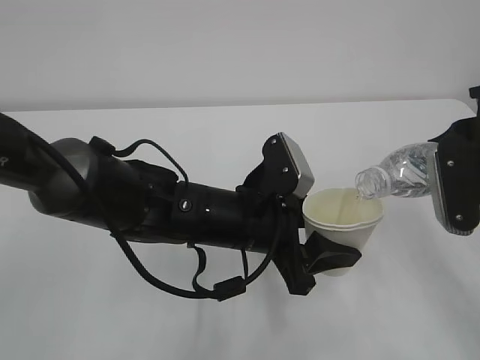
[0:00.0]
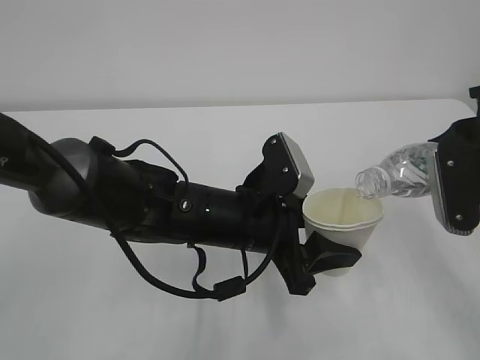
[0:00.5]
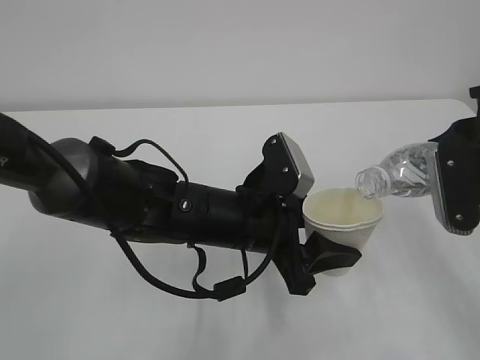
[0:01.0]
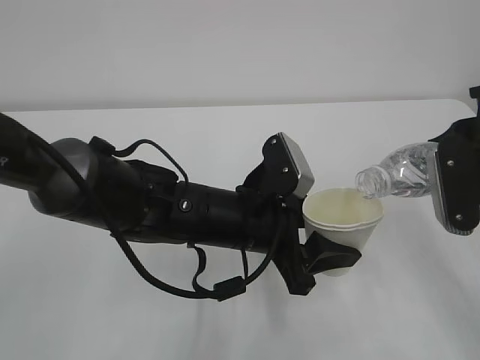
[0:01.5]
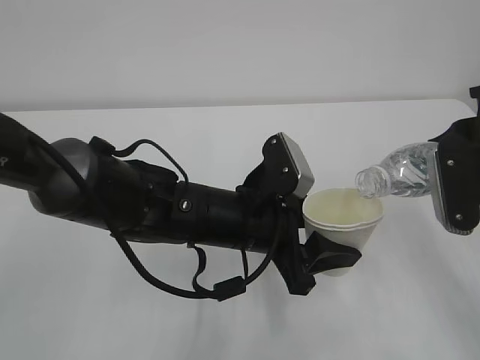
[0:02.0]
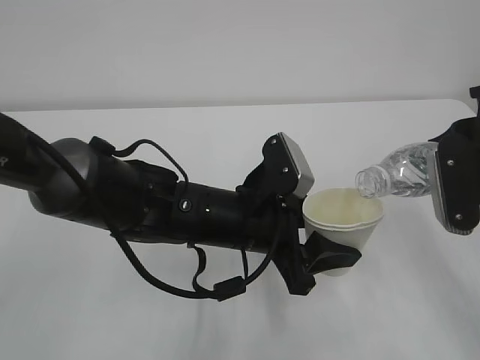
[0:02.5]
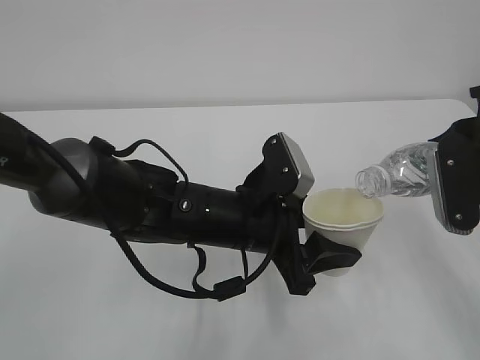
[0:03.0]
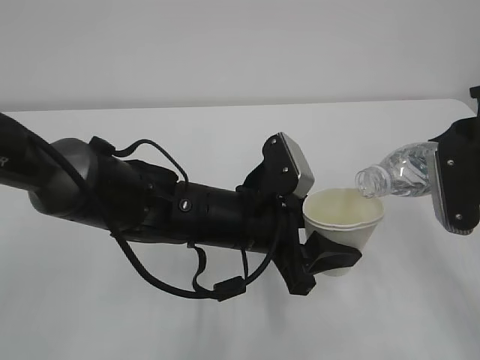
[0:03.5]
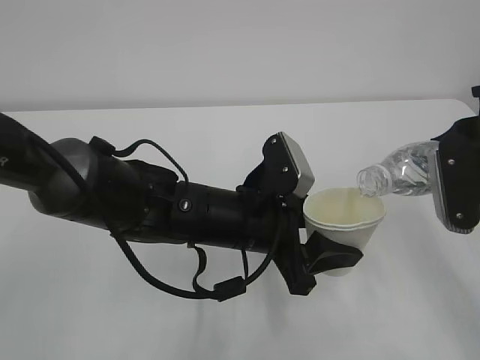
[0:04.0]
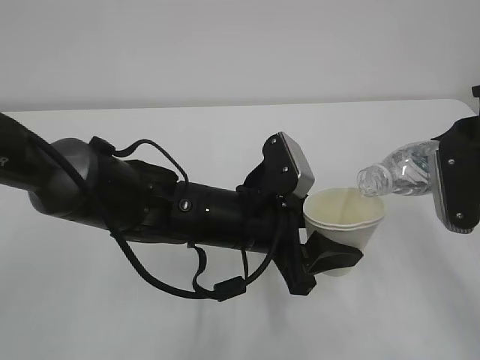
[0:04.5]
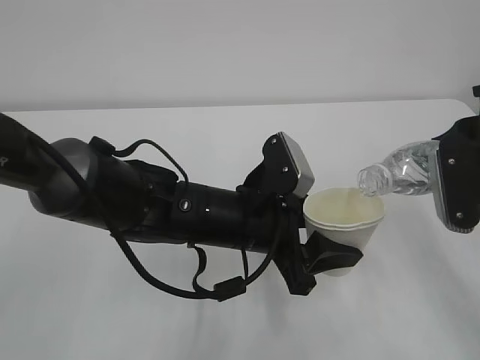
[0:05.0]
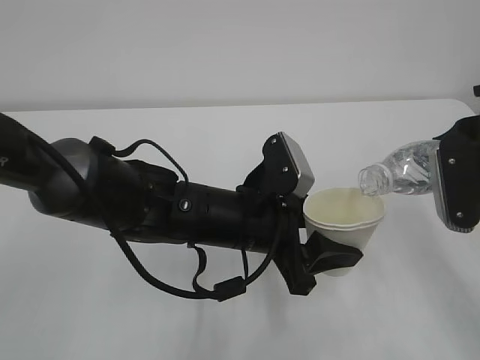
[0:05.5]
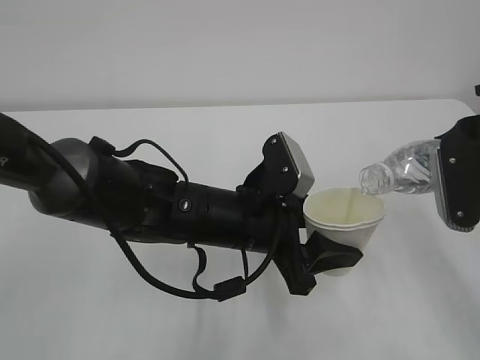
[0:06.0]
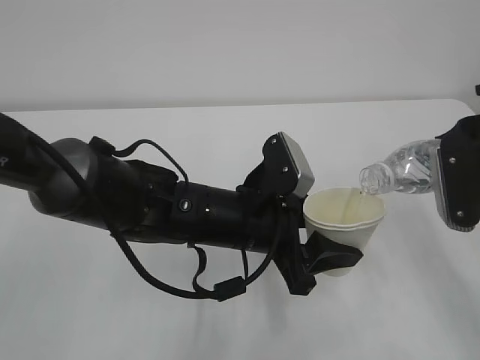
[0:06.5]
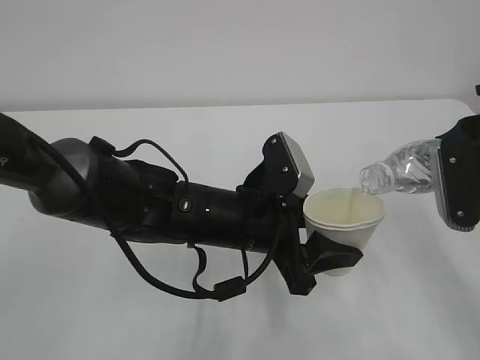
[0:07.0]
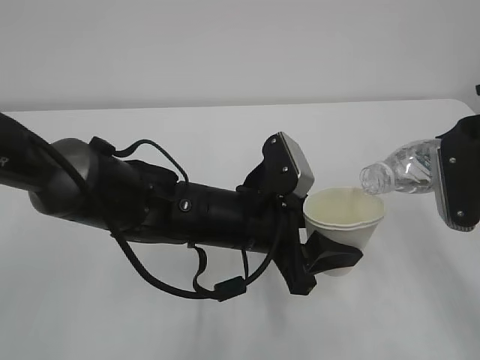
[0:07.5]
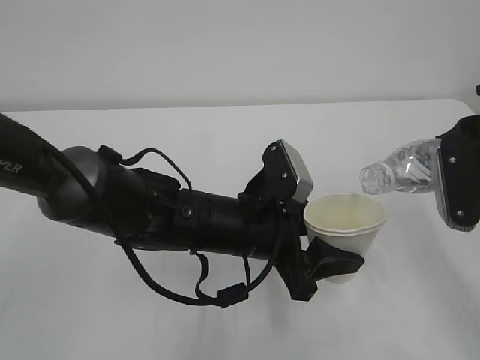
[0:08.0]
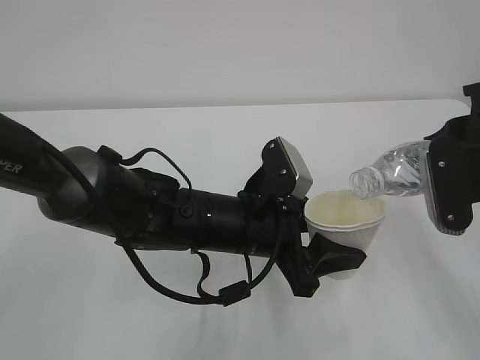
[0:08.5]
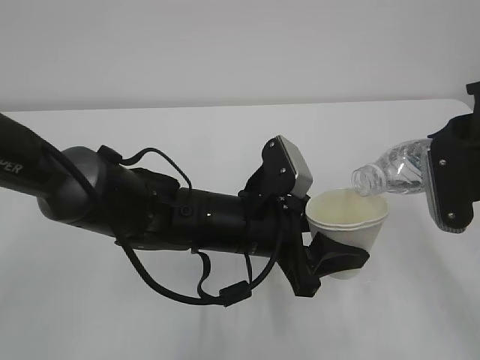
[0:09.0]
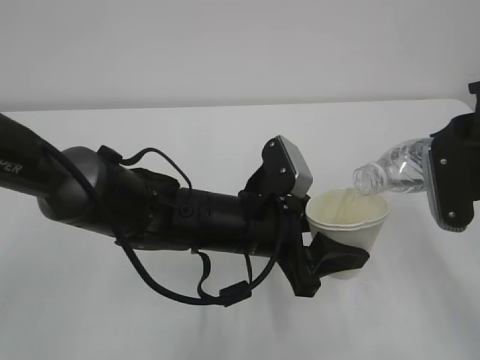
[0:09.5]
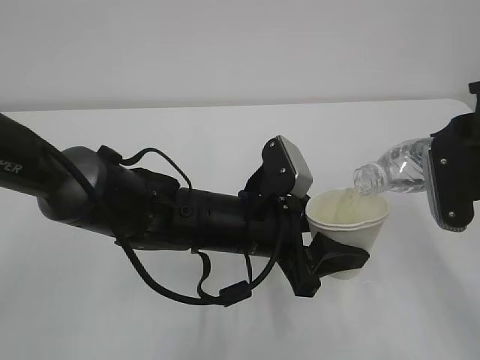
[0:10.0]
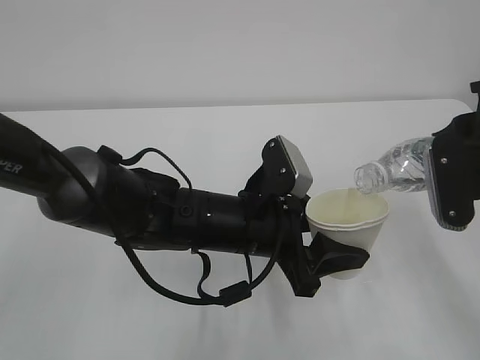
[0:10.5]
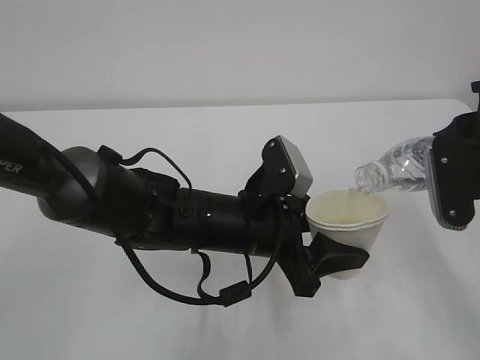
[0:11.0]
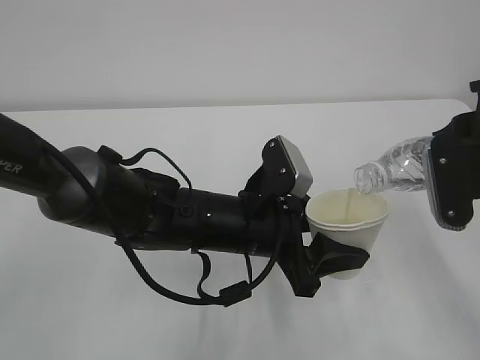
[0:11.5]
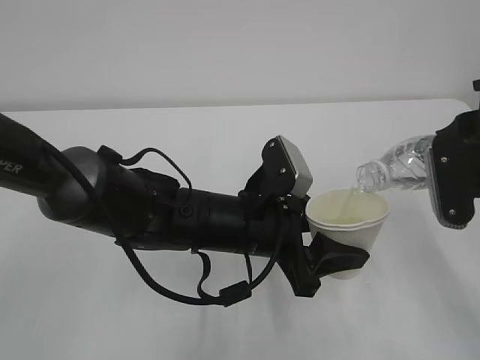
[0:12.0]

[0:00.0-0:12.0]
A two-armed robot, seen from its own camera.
0:00.0 to 0:08.0: Neither gripper changes place.
0:08.0 to 0:12.0: Neither gripper changes place.

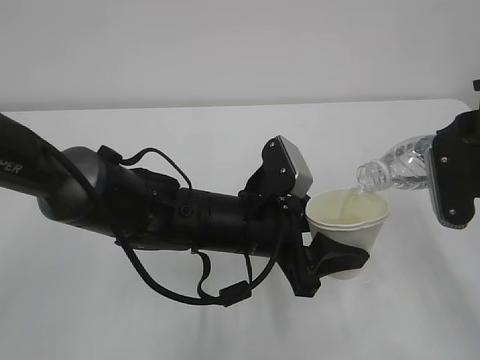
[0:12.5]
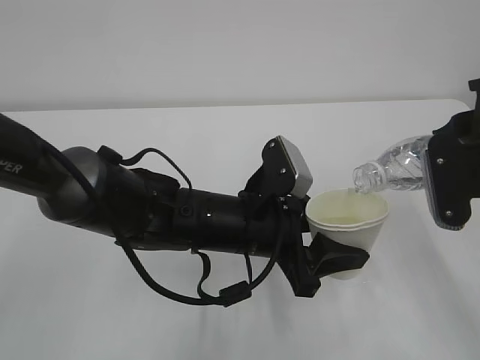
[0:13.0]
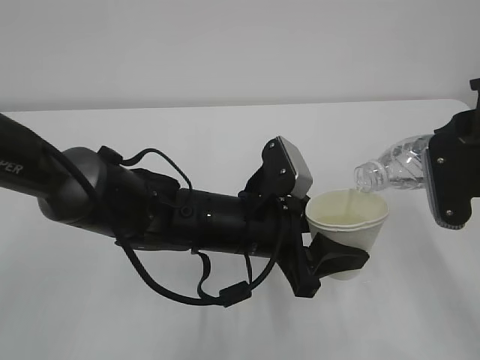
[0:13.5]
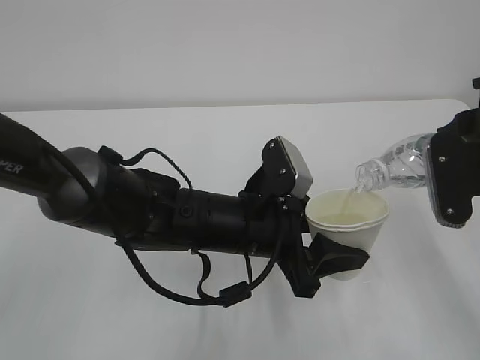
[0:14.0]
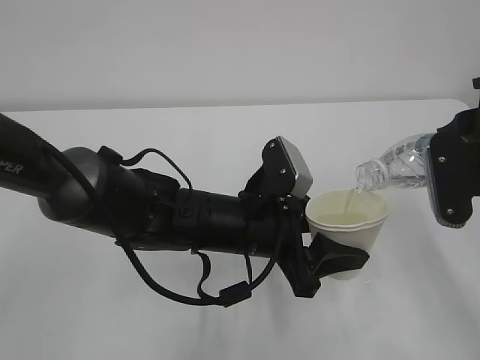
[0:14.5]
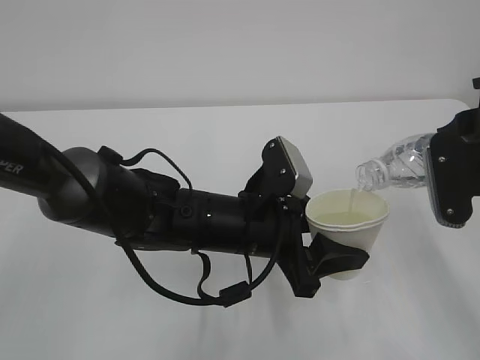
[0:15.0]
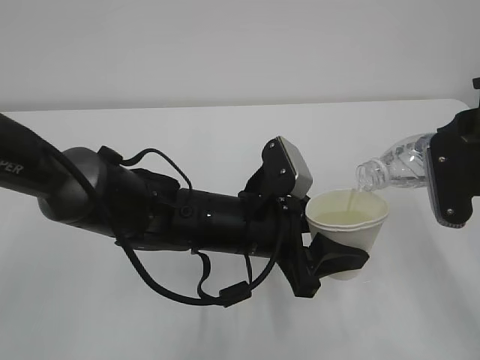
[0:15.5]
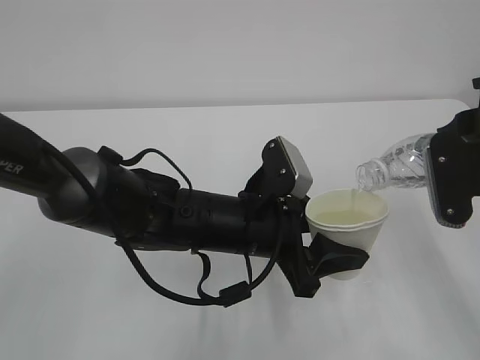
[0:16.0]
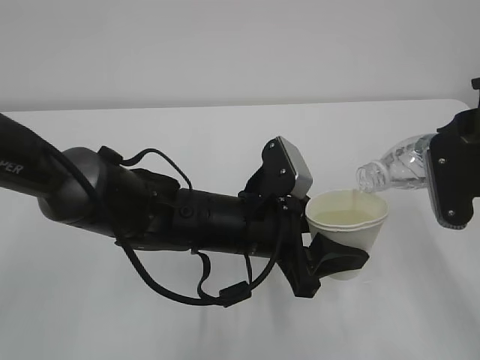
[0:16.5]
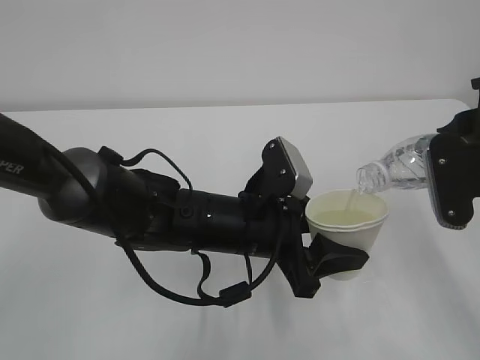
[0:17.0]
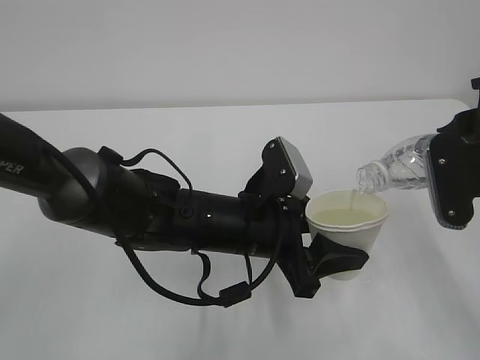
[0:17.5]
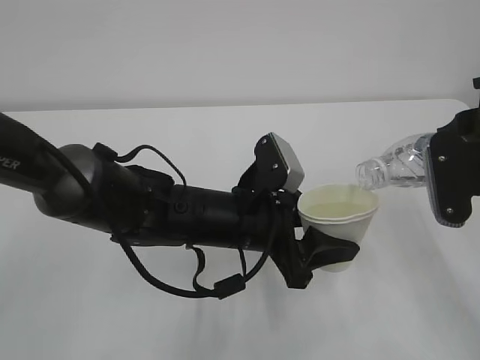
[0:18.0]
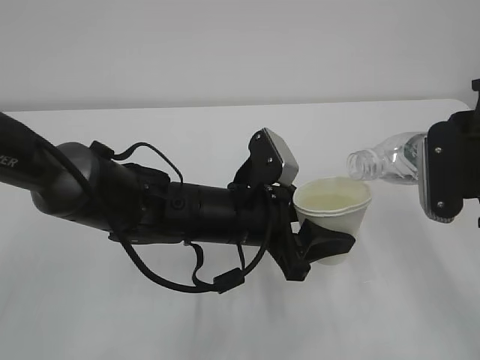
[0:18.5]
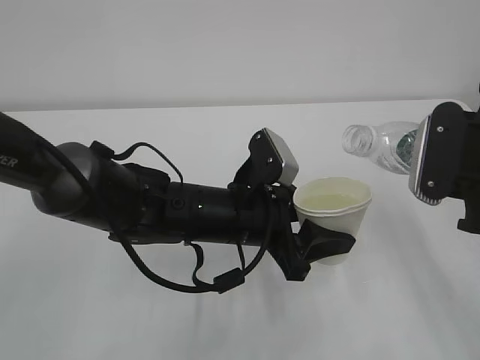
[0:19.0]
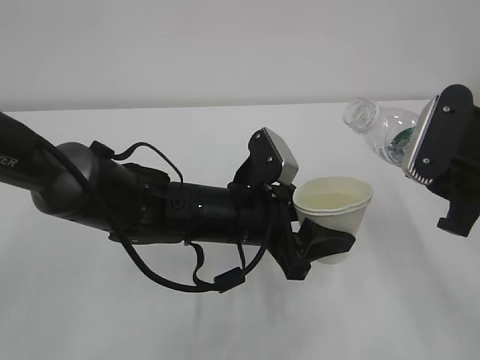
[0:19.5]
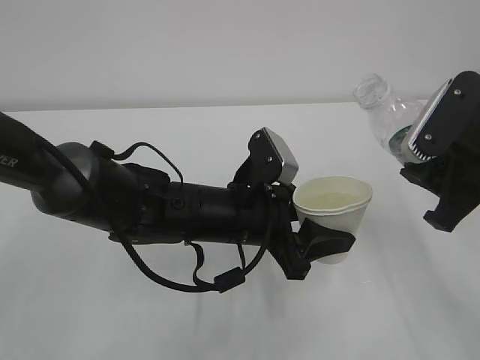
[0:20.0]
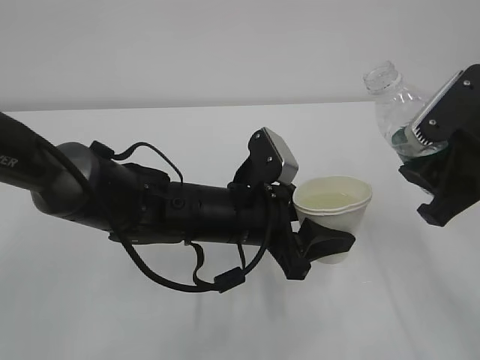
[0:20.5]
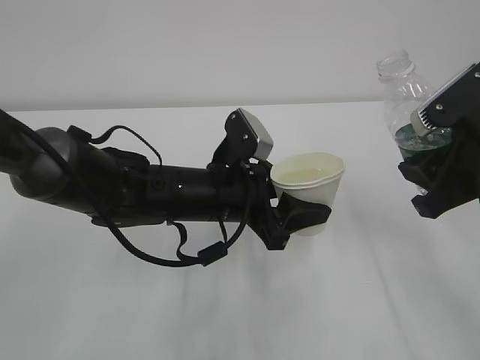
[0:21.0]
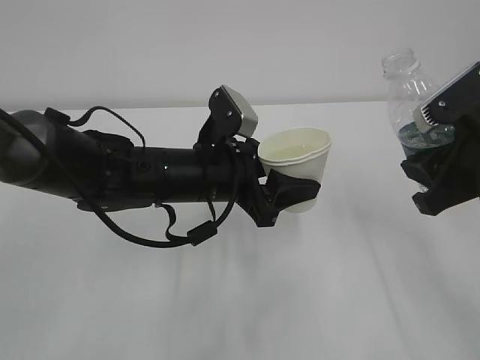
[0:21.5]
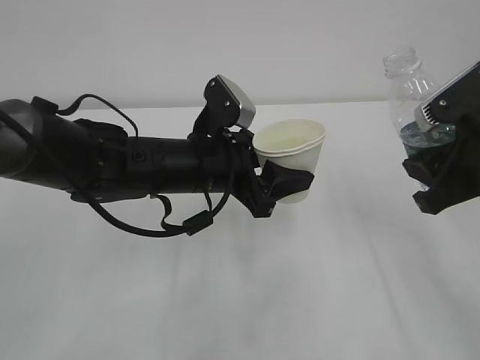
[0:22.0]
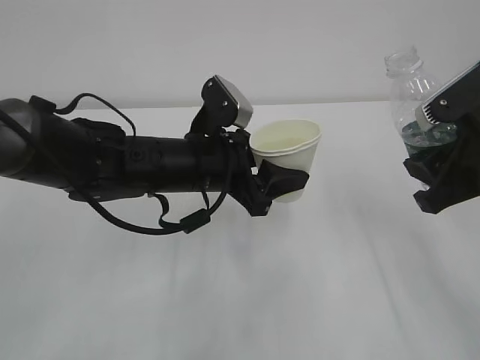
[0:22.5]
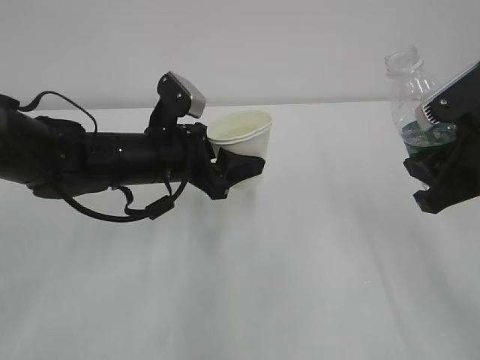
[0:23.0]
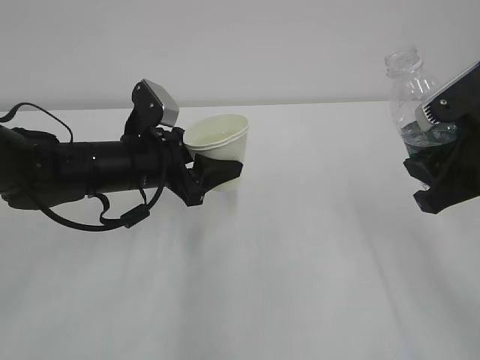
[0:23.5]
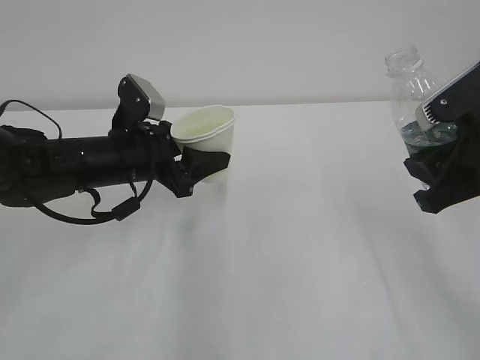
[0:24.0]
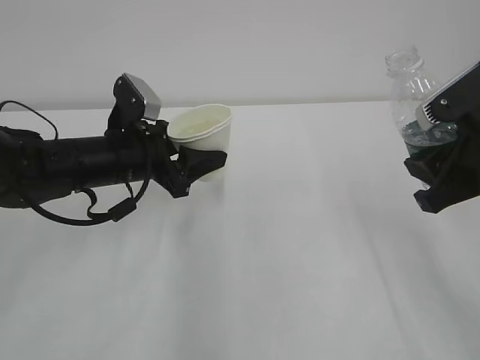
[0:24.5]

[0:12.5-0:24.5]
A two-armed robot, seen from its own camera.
0:12.5 to 0:16.5: Both grippers stay put.
0:16.5 to 0:18.5: The grippers stay close to where they were, moving slightly.
0:20.5 to 0:22.5: The left gripper shifts by approximately 5 cm.
0:22.5 to 0:24.5: The left gripper heads to the left, covering approximately 10 cm.

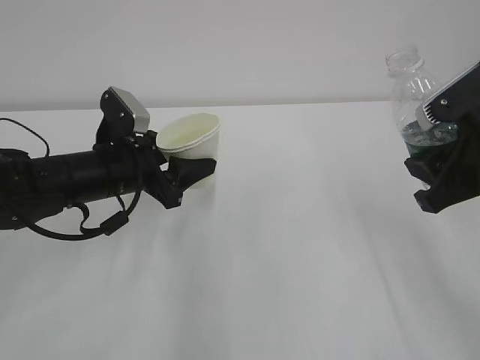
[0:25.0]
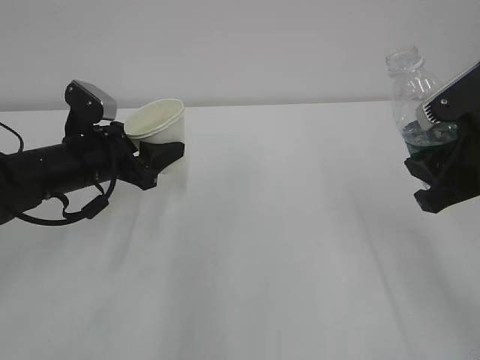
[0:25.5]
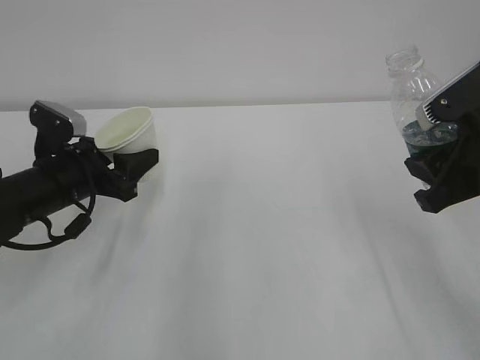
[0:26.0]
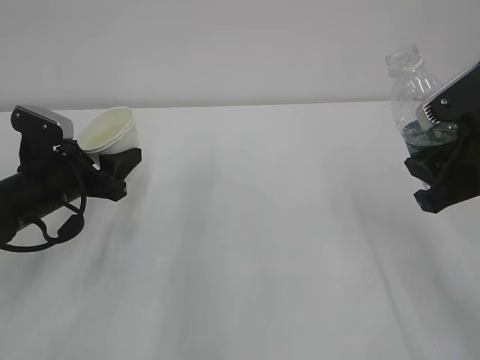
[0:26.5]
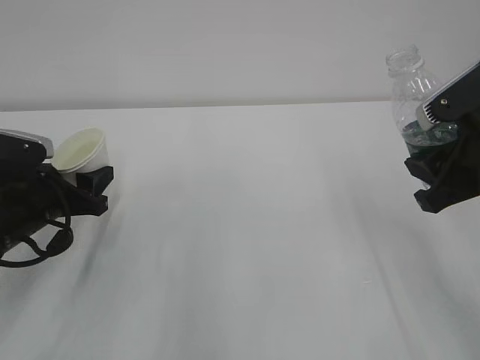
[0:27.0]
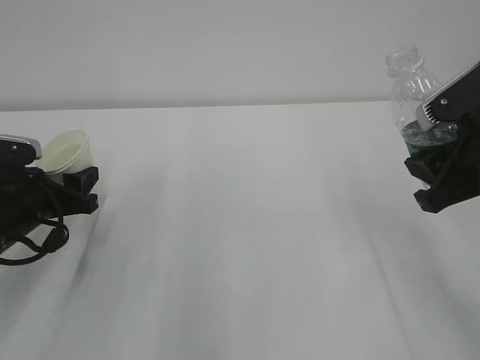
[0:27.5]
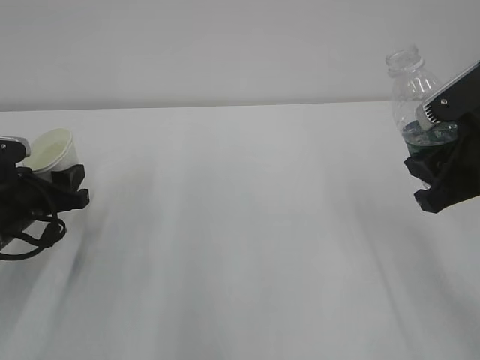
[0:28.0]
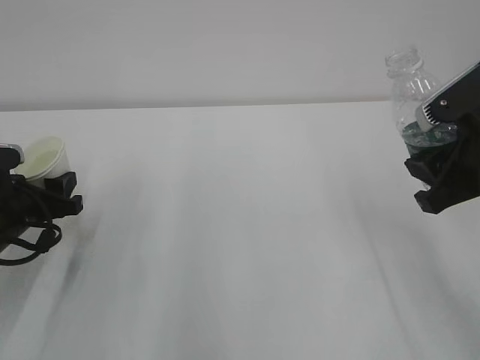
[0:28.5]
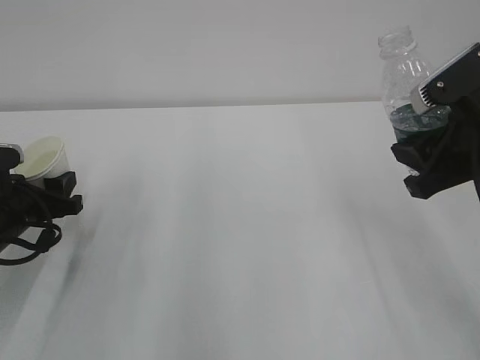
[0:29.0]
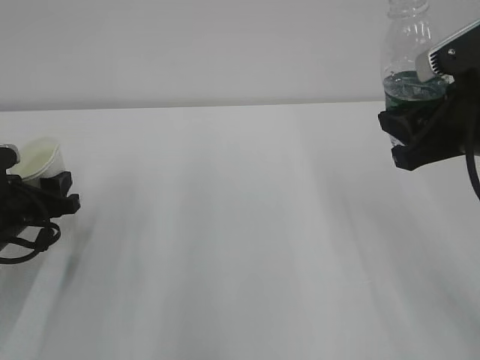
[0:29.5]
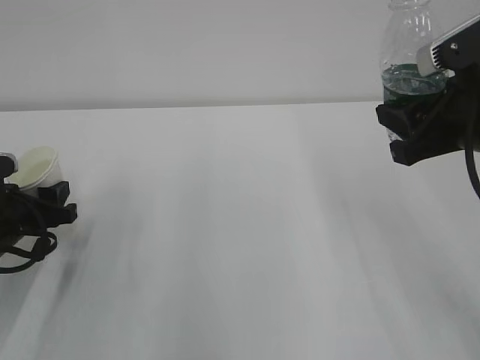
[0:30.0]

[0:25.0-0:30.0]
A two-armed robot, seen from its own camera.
0:25.0 to 0:27.5: The left gripper travels to the left by approximately 10 cm.
0:27.5 to 0:30.0: There are only small adjustments of the grippers.
